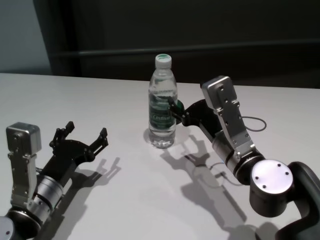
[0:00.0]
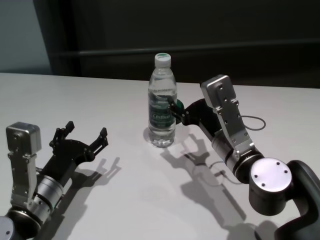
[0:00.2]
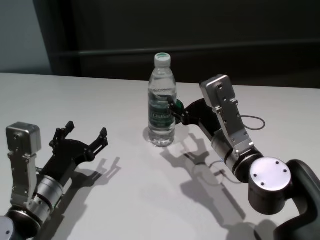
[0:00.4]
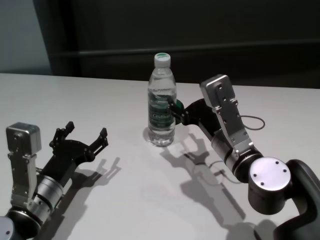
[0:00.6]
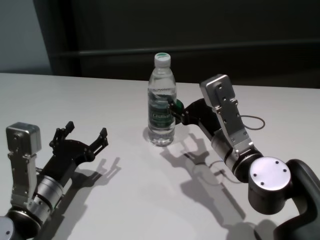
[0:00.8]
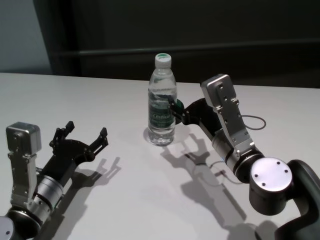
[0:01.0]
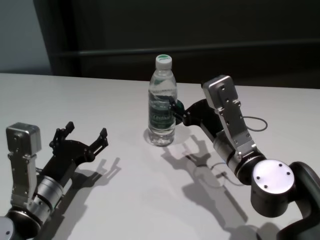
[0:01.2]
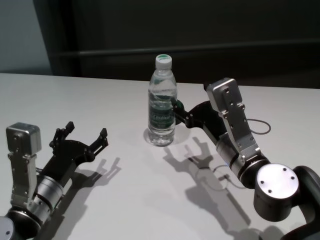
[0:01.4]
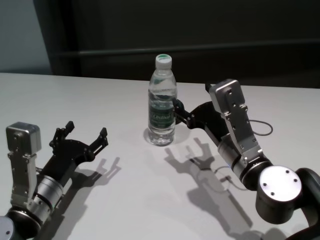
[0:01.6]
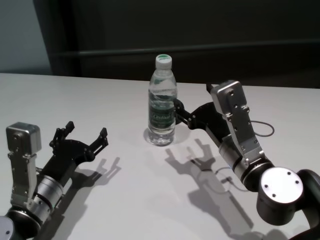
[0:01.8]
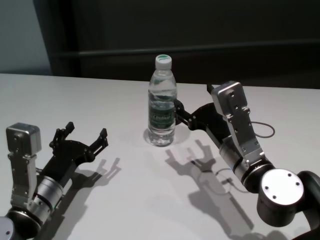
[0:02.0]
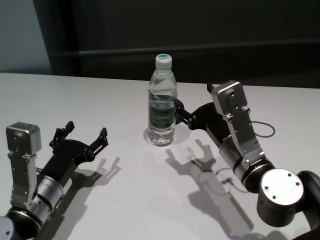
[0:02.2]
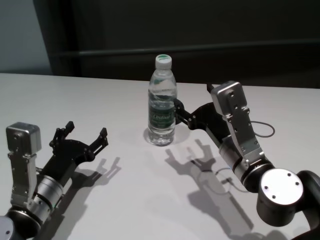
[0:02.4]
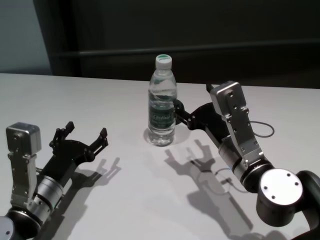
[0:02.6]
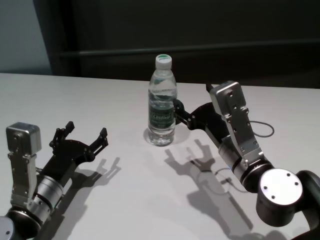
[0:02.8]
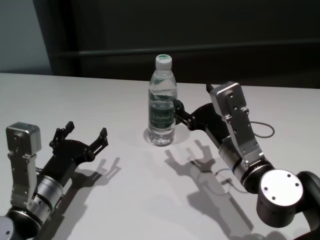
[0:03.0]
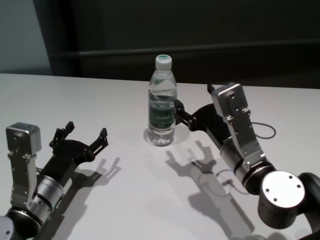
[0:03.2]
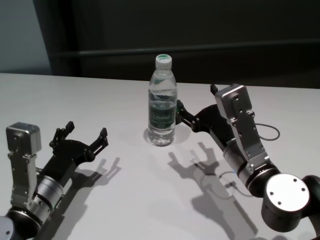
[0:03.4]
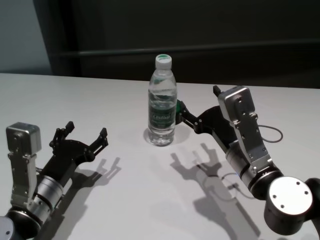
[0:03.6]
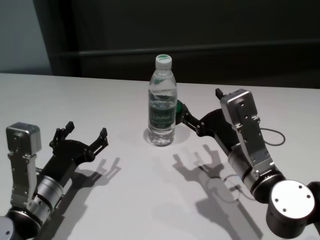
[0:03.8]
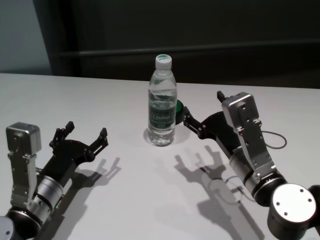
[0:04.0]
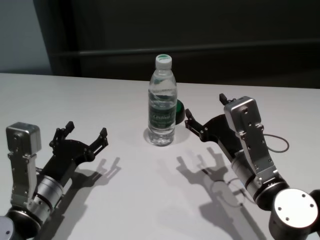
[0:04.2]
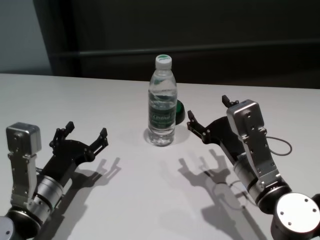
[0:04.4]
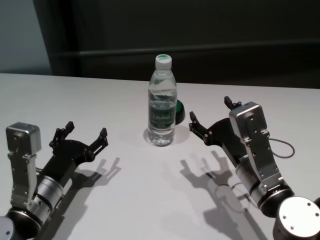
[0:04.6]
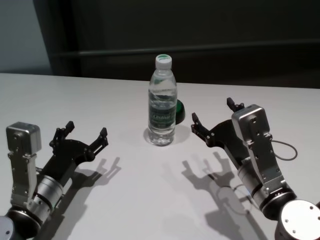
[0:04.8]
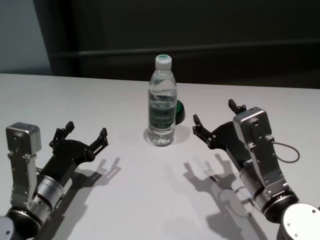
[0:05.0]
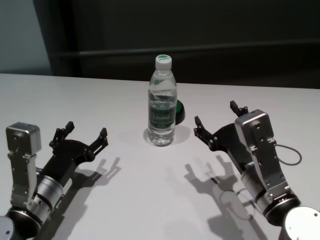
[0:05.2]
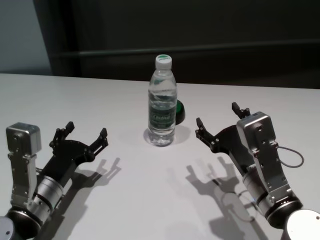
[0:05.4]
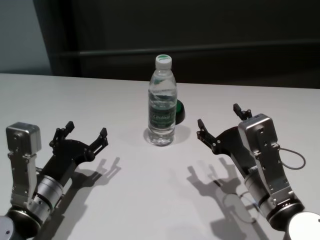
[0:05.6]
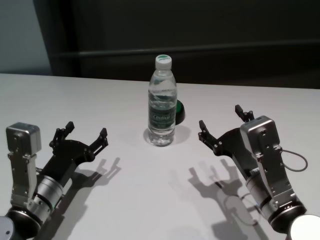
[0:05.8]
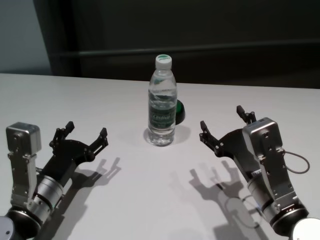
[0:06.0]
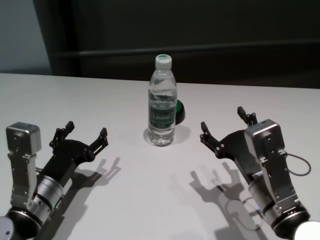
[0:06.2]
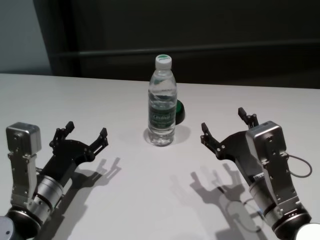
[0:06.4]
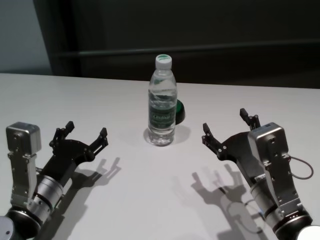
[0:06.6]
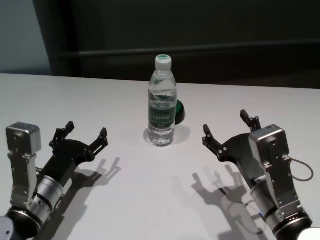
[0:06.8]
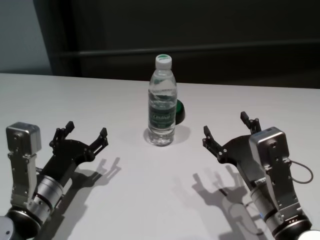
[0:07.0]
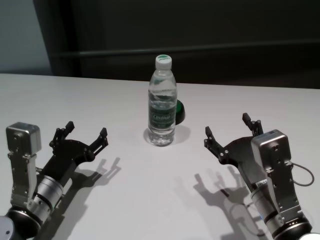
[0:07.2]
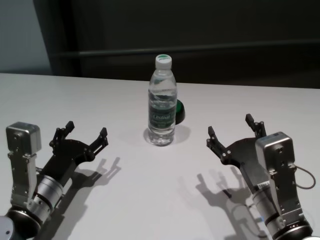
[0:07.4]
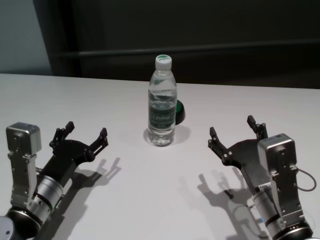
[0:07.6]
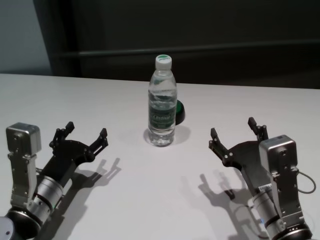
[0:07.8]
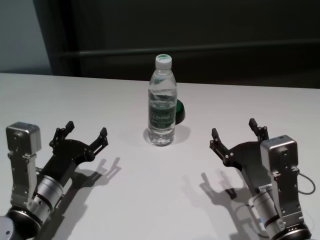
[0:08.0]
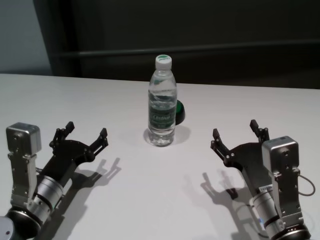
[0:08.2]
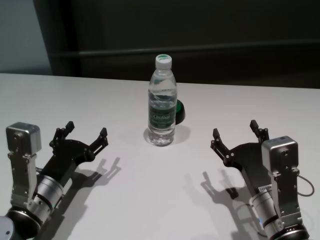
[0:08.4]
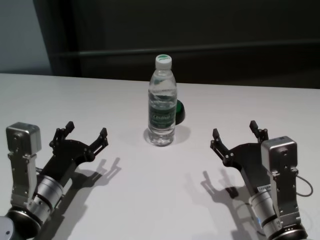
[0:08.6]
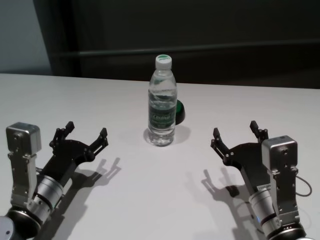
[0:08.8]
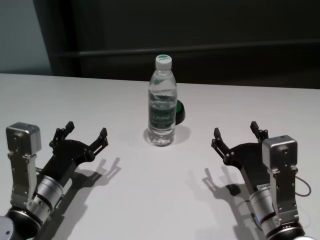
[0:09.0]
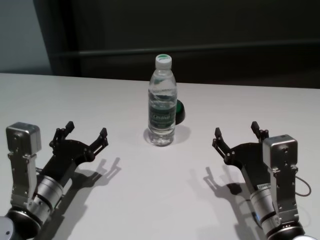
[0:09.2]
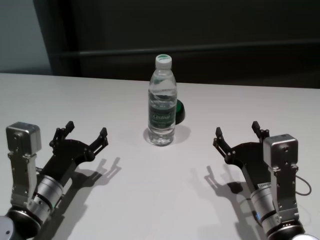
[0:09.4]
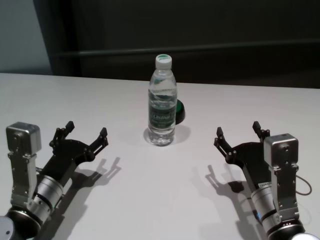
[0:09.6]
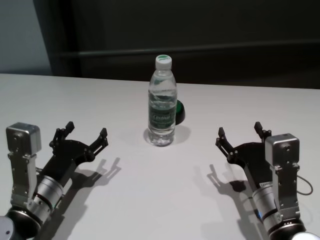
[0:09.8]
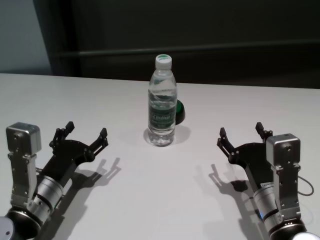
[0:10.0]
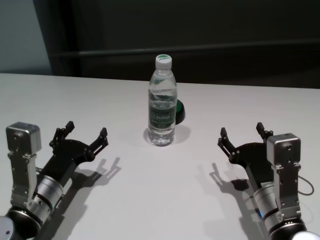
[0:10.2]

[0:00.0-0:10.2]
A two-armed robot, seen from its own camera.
Task of the whole recording: return to a safe position after touching an obstacle with your arm on the white table.
Step, 0:00.0 to 0:03.4: Touch the bottle with right gripper.
